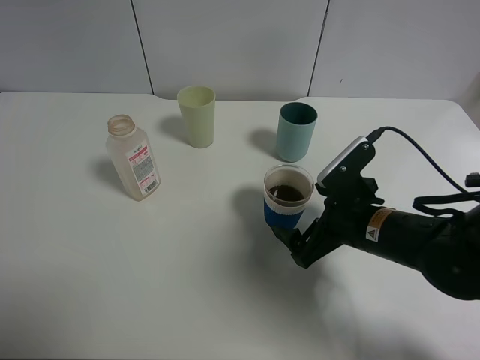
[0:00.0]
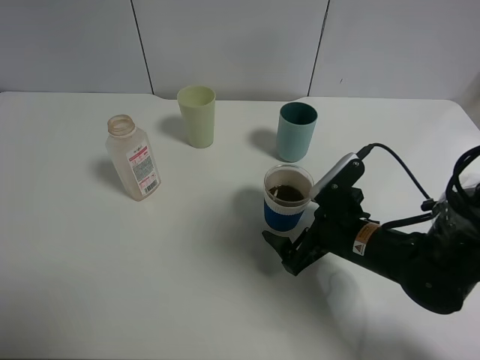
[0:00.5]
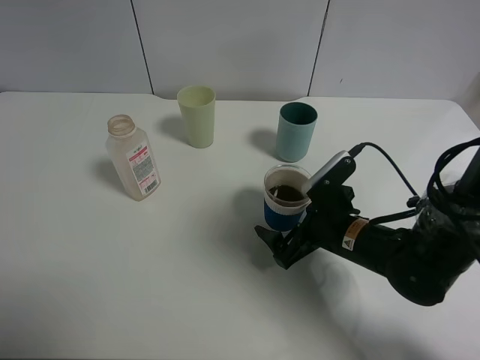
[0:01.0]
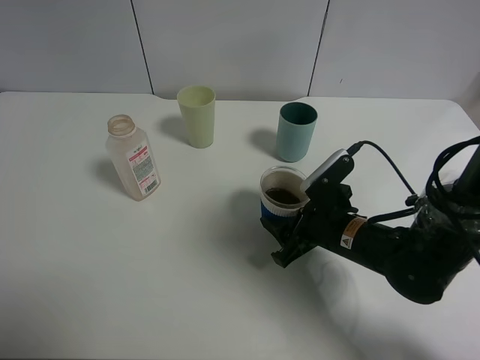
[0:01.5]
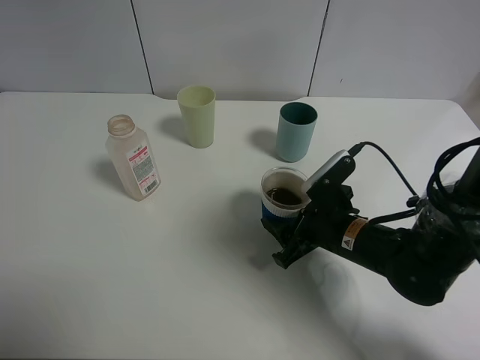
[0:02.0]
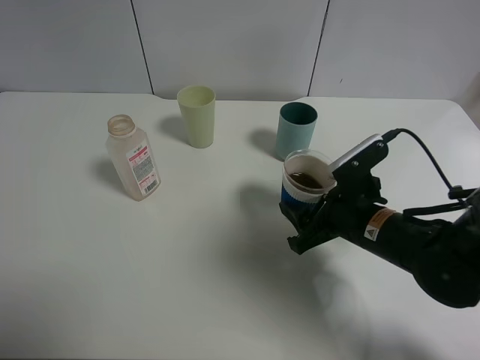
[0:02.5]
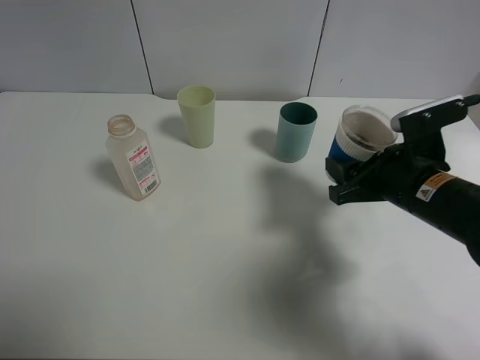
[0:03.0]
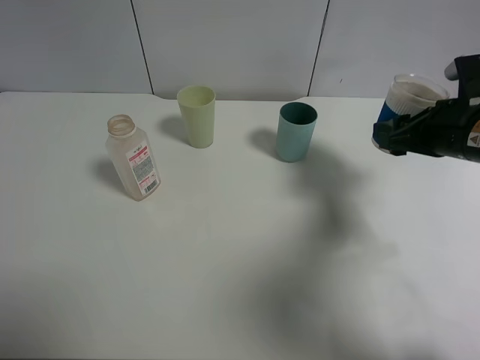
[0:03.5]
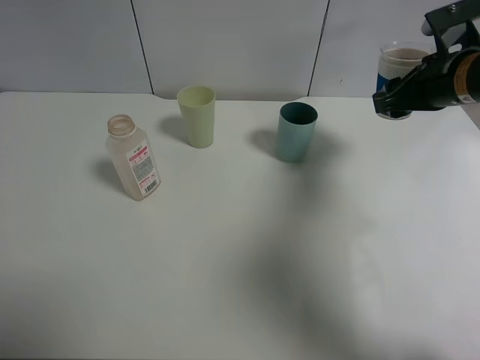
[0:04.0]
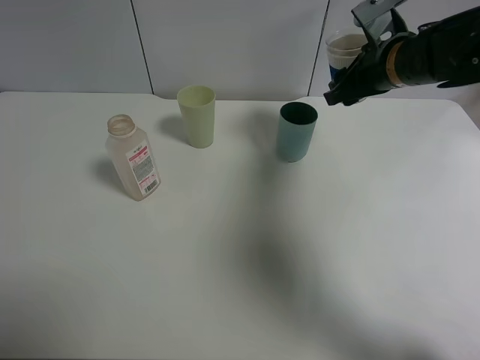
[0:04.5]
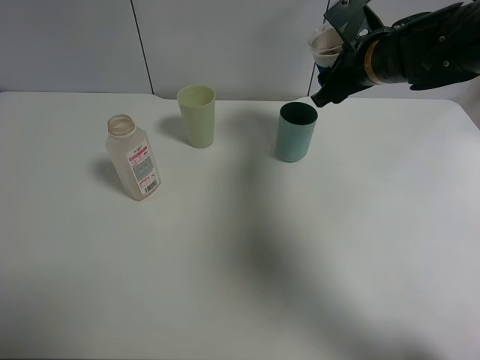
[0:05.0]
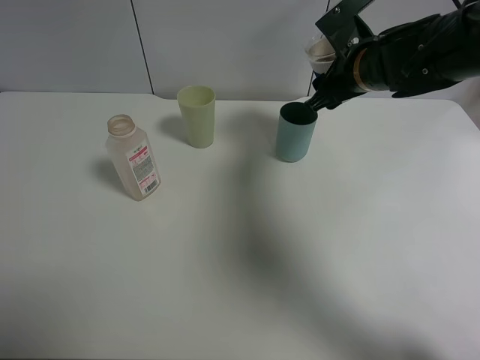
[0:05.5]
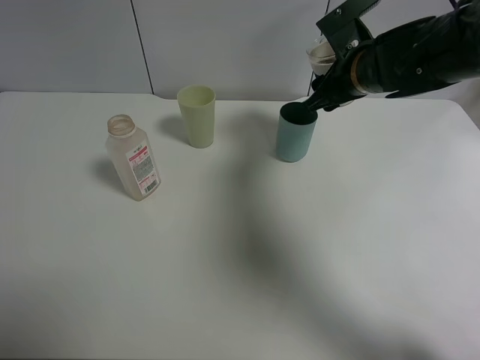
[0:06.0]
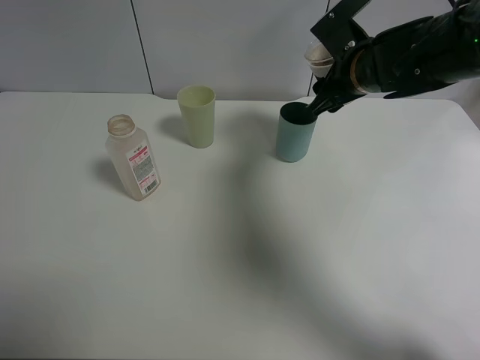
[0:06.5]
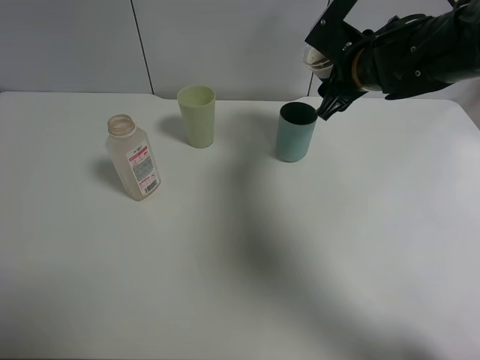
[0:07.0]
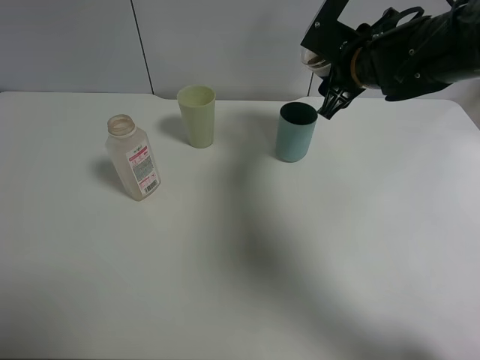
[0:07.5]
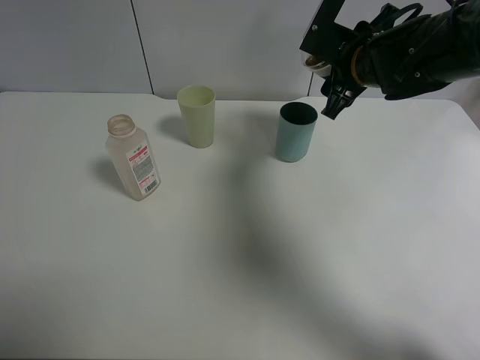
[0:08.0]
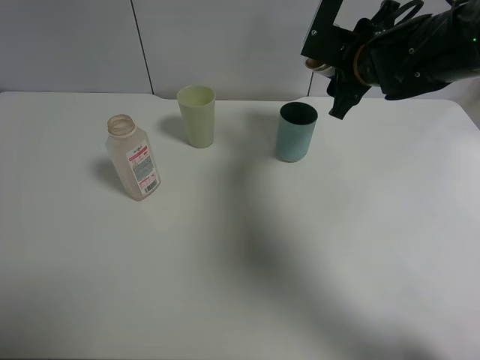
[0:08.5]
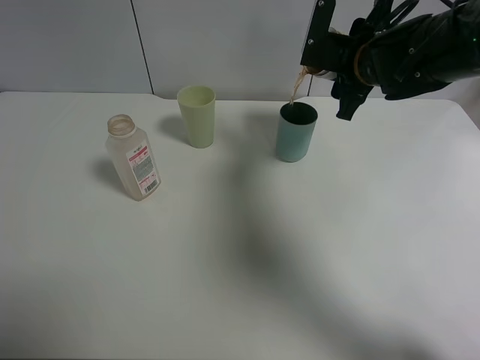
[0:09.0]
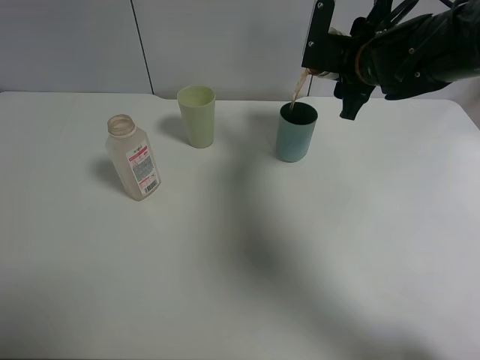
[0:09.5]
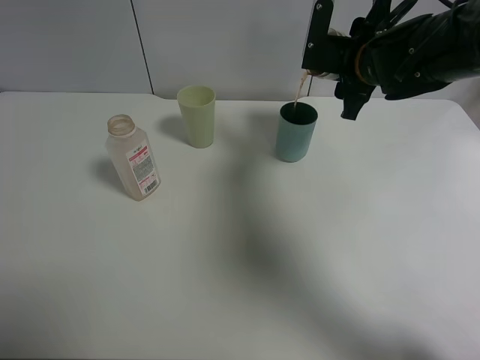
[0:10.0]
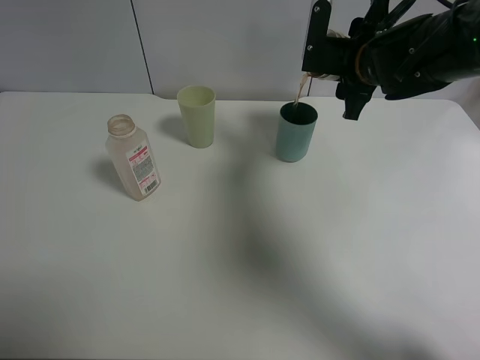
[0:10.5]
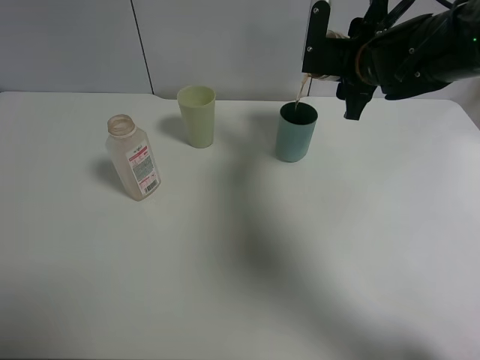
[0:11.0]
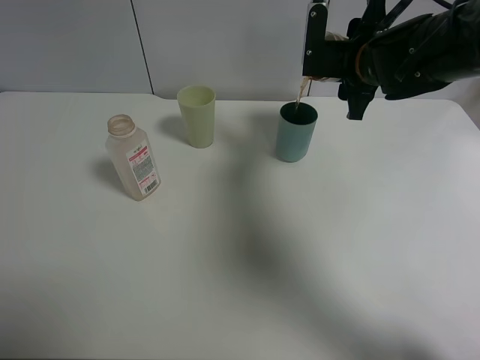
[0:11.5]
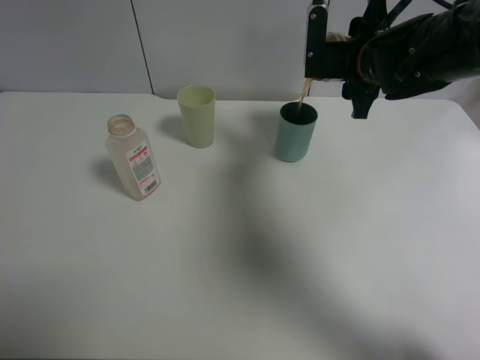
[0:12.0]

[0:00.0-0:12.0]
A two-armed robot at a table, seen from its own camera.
Task of the whole recording: use a clamp to hold the bottle of the drink, pour the beverage into a random cup, then clamp the cup containing the drink and pour the drink into another random cup.
Step, 0:00.0 to 0:02.0: Pick up the paper cup with right gripper.
0:00.0 to 0:02.0: The right gripper closes its fingers.
0:02.0 to 0:04.0: The right gripper goes approximately 25 cm upward, forward and to the right.
0:04.0 to 0:06.0: The right gripper travels to the left by about 10 cm.
0:08.0 to 0:10.0: The grippers make only small movements.
0:10.0 to 0:12.0: There are only small adjustments of the grippers.

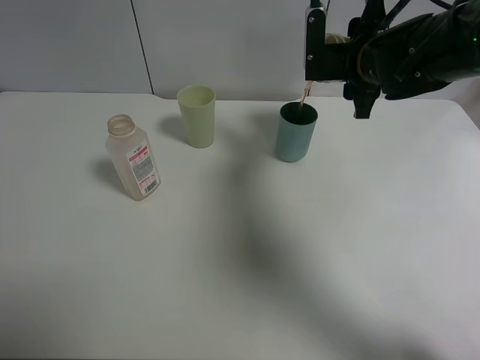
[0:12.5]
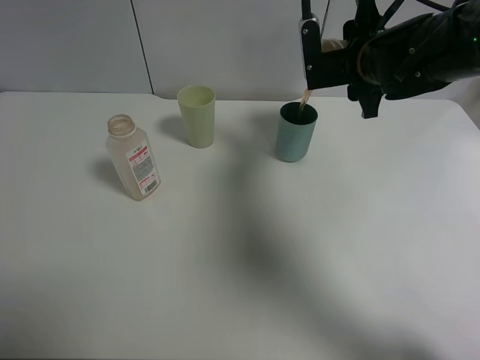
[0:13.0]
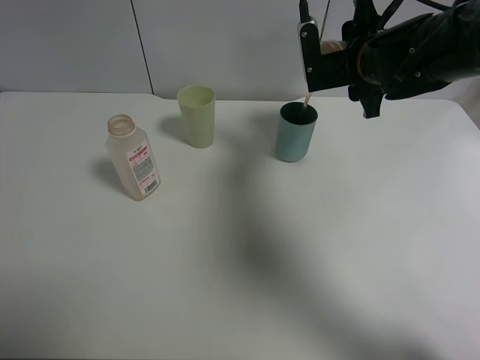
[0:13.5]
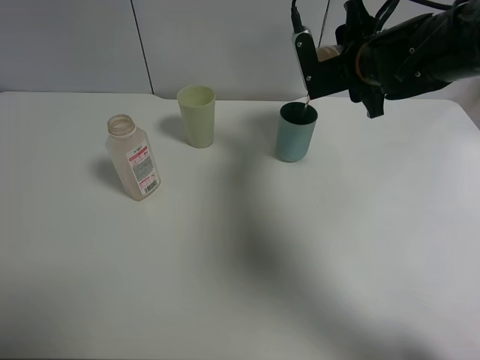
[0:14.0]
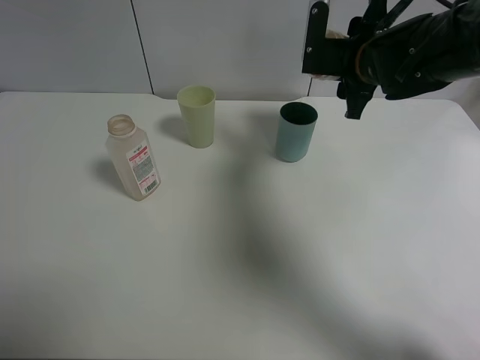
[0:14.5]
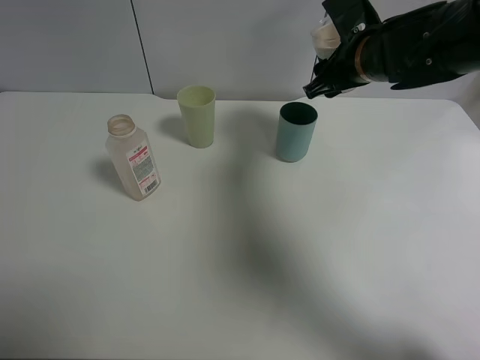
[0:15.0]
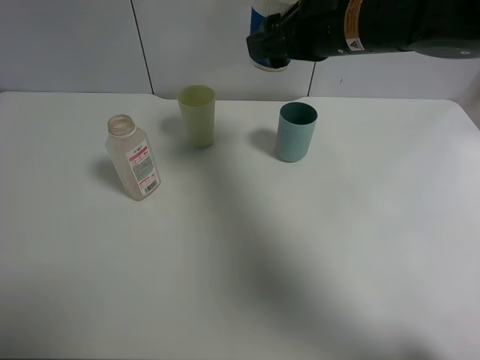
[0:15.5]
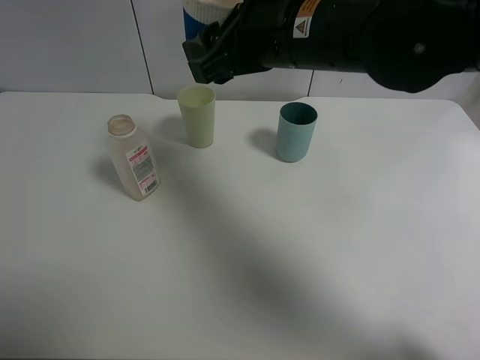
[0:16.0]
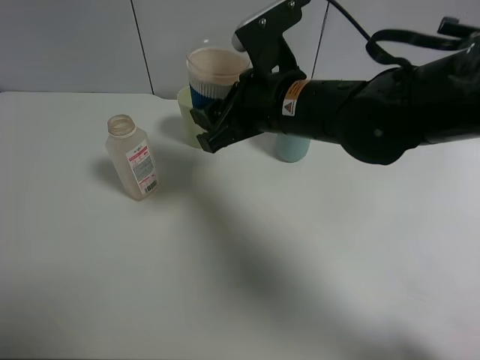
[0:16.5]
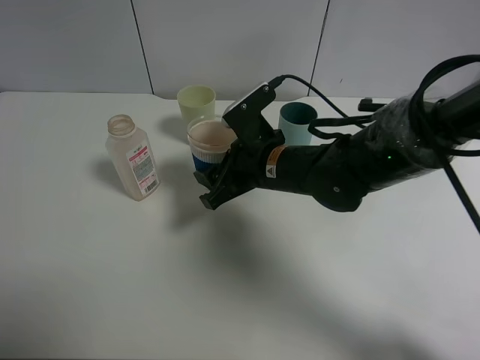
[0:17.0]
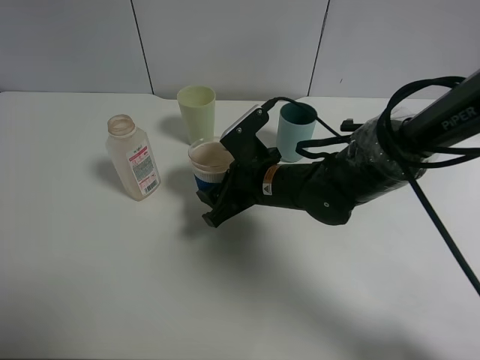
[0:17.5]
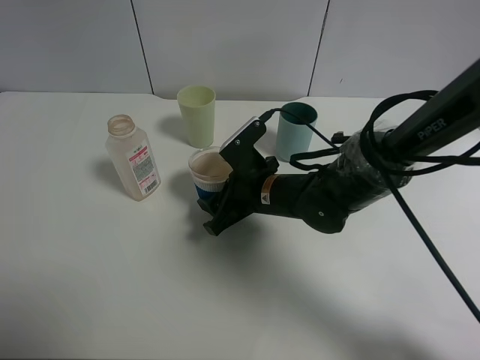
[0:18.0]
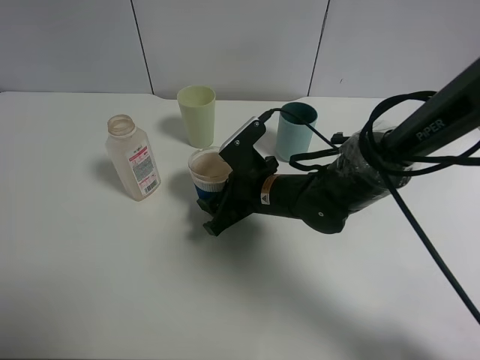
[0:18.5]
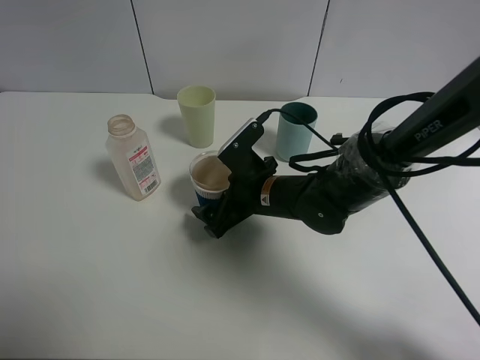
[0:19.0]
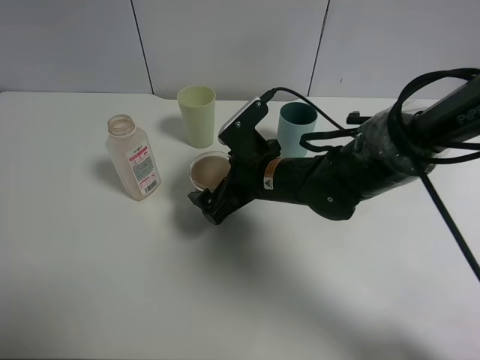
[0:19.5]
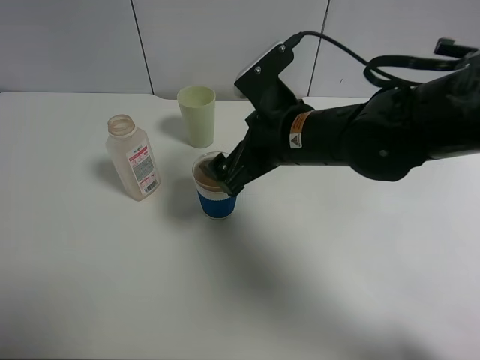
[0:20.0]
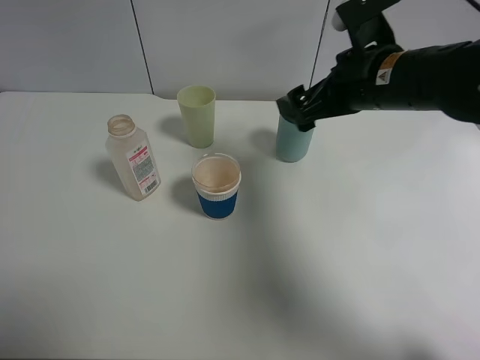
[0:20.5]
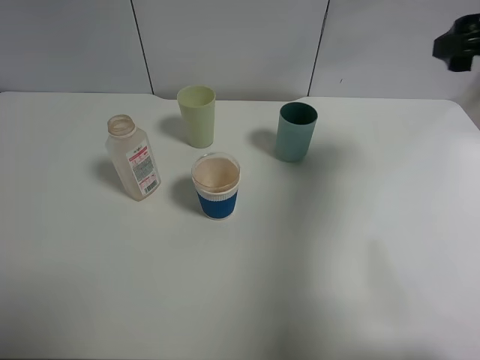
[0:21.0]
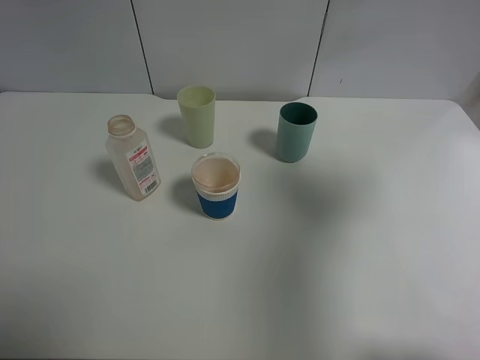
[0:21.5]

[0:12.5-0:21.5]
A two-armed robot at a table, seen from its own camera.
Task of the whole recording: use a clamp to hold the bottle of the drink, pour the beverage into a random cup, then clamp the cup containing the drink and pour the drink into another random cup.
Step, 0:14.5 to 0:19.5: Place the paper cup on the table with right gripper.
0:12.5 to 0:14.5: The grippers move only a little.
0:14.5 to 0:17.0: The right gripper travels to the left, backward and downward by approximately 20 cm.
0:17.0 to 0:19.5: The right gripper opens up.
0:19.5 to 0:21.5: The right gripper is displaced to the right and upward by approximately 40 cm.

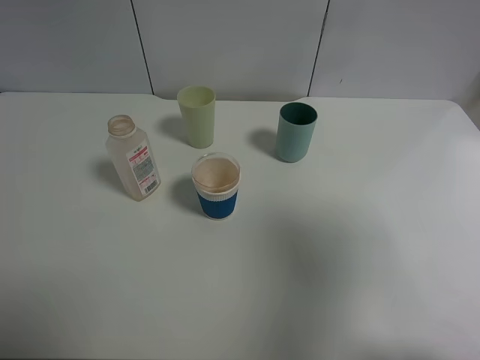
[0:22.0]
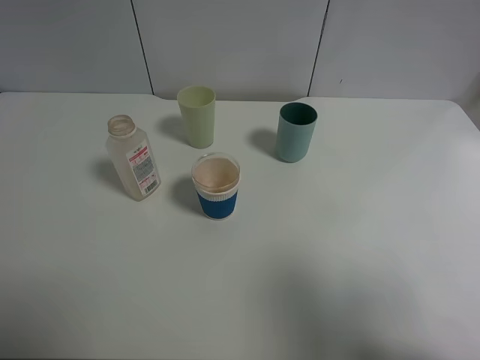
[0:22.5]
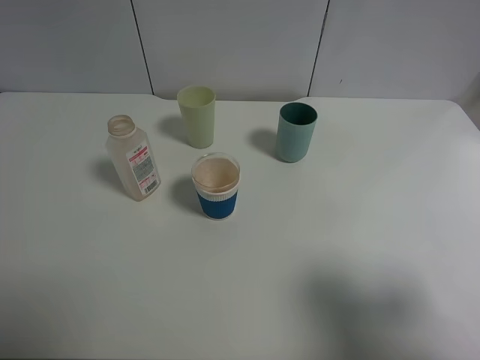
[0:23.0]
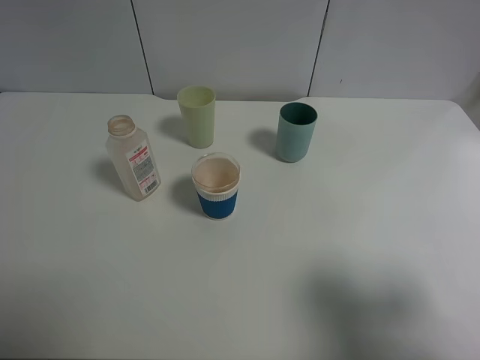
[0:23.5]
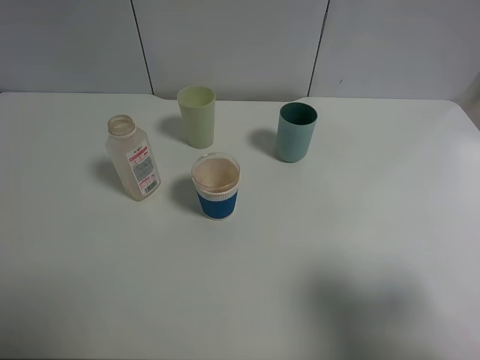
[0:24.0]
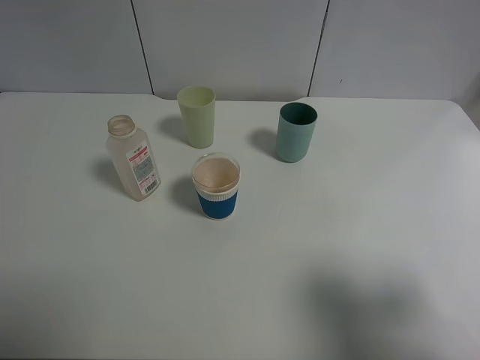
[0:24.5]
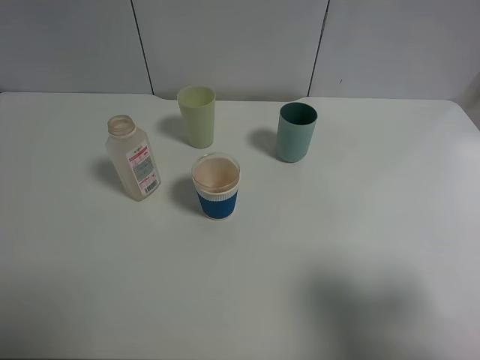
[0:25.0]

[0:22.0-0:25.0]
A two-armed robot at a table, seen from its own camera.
Task of the whole recording: use a clamp to hold the bottle of the drink, pour the beverage into a random cup, then clamp the cup containing the drink and pour the drink into another random cup.
0:22.0 to 0:23.5: The right gripper moves downward and backward, some 10 cm.
0:23.5 to 0:25.0: Both grippers stay put.
